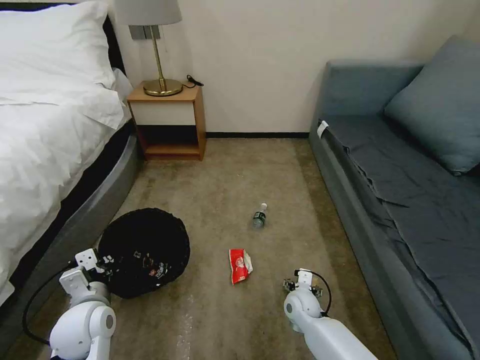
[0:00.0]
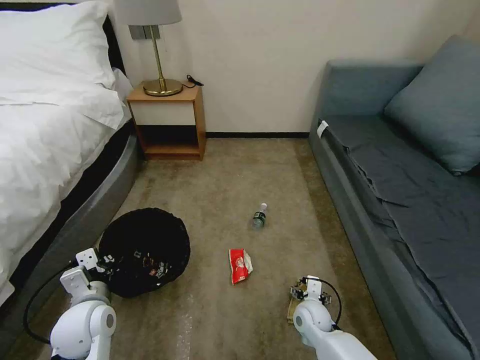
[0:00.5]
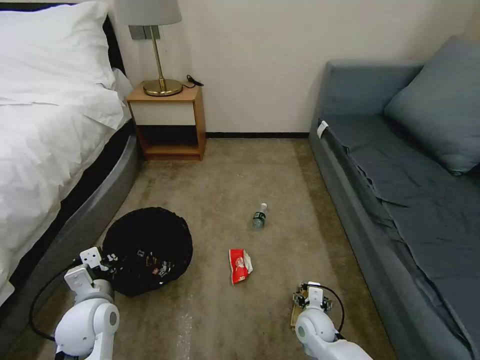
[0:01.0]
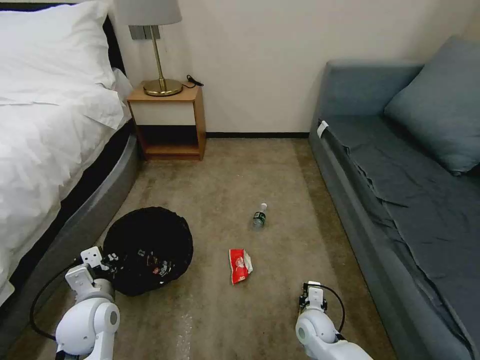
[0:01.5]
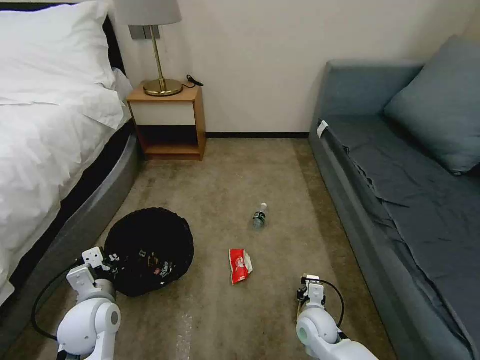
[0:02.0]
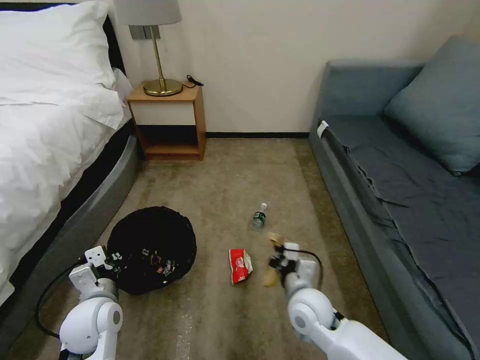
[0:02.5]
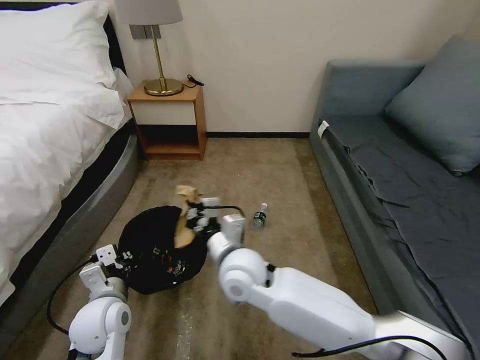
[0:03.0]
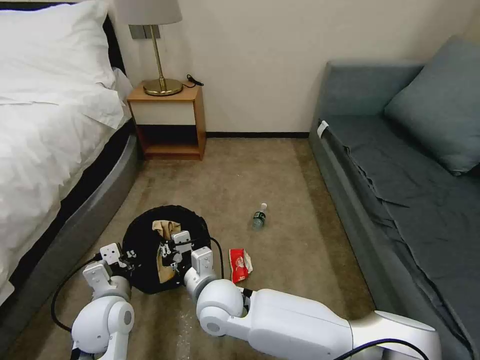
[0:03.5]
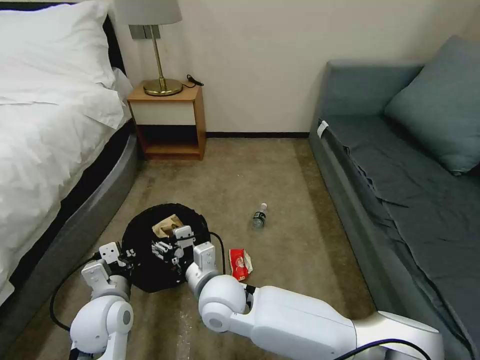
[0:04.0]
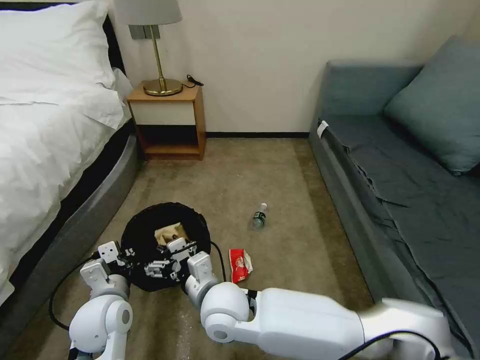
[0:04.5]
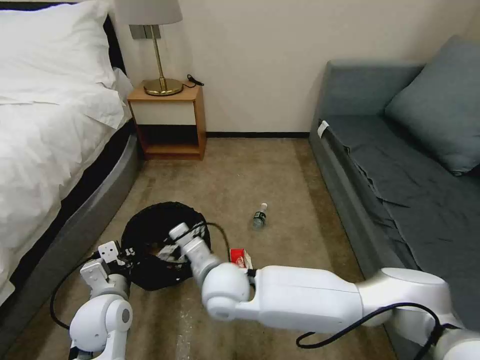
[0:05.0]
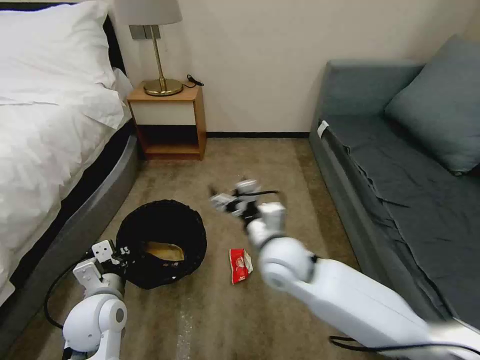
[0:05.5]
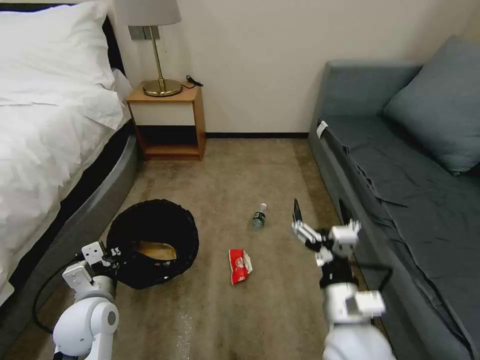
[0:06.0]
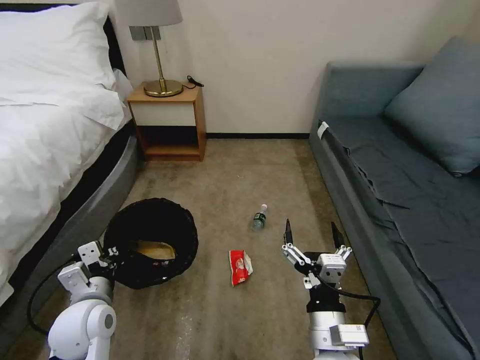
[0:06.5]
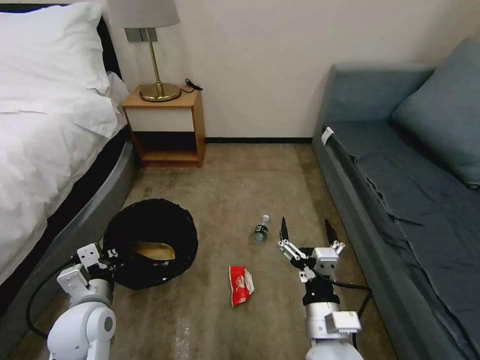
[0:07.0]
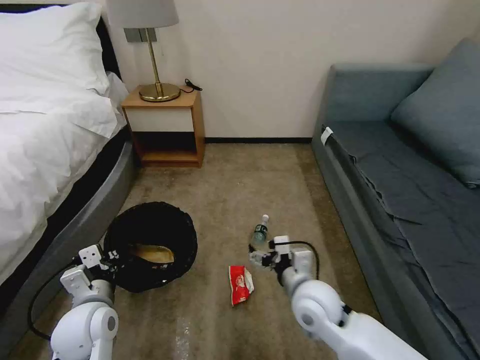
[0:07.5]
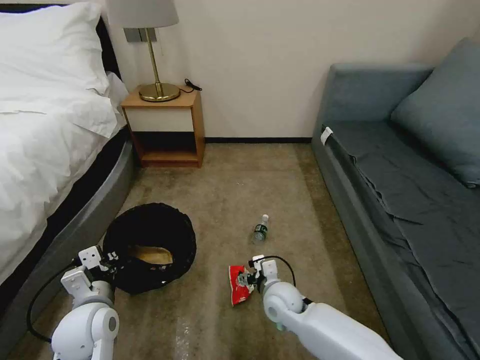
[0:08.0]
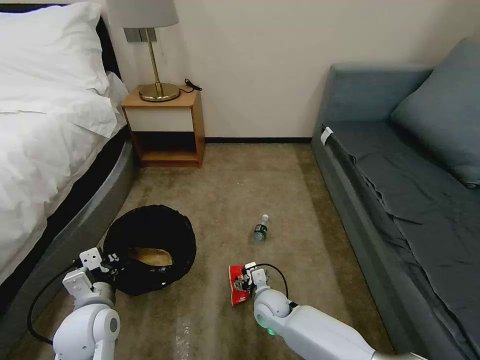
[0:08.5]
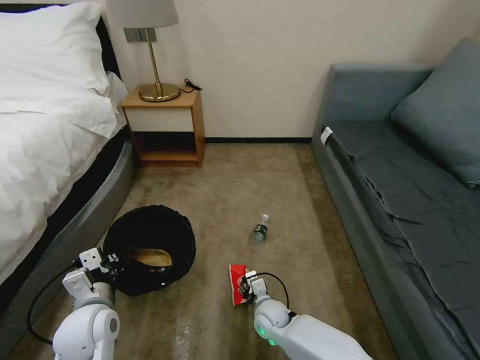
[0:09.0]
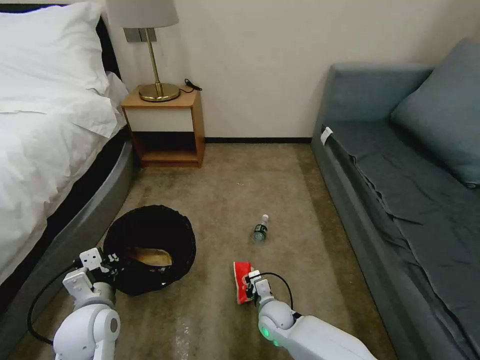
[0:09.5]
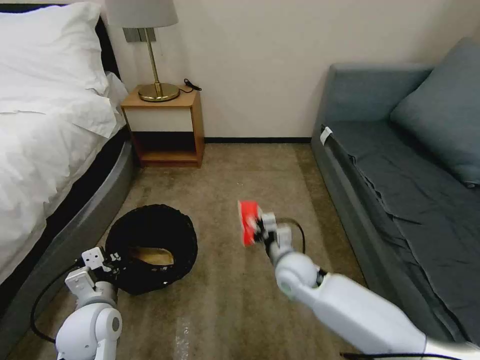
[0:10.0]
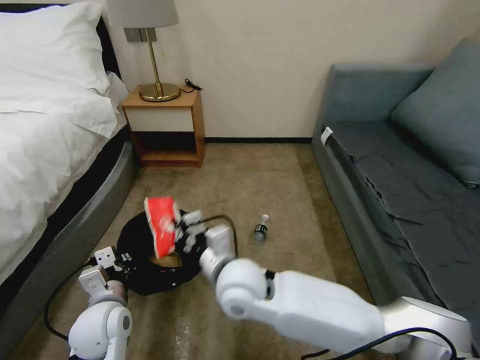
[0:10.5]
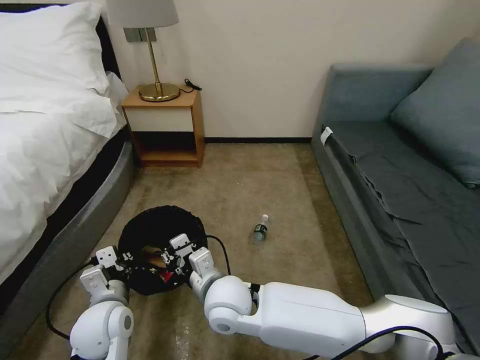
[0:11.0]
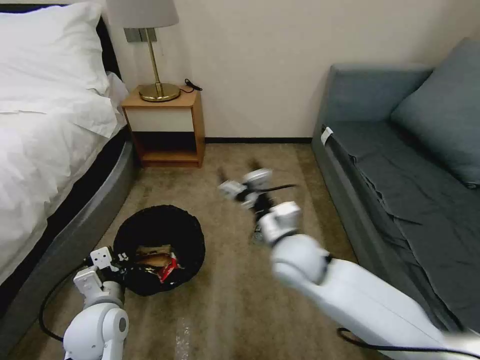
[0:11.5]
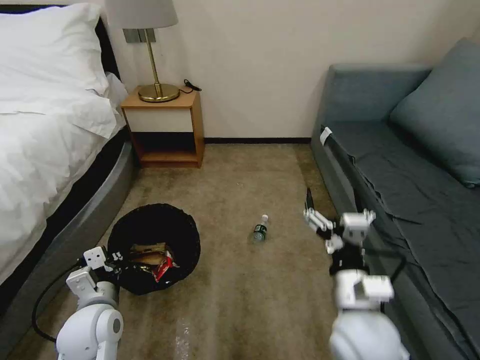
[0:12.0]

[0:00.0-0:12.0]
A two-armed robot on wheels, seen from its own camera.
Task of the whole recording: Pick up the trash bin, then pick up the garbage on the floor and place it into the trash bin.
0:00.0 to 0:02.0: The right gripper moves backward, about 5 cm, and closes.
0:02.0 to 0:04.0: The right gripper is displaced to the left and upward by some 30 cm, and opens its fingers.
0:04.0 to 0:06.0: The right gripper shifts some 25 cm to the right and backward.
0:06.0 to 0:08.0: The right gripper travels downward, forward and to the left by about 20 cm.
0:08.0 to 0:10.0: The right gripper goes approximately 10 cm upward, and closes up.
0:10.0 to 0:12.0: The right gripper moves backward and upward, some 20 cm, travels to the left and back again, roughly 15 cm each way, and opens.

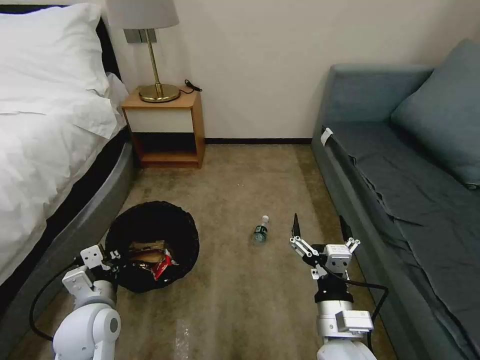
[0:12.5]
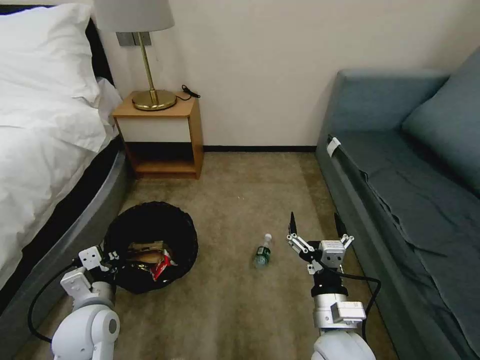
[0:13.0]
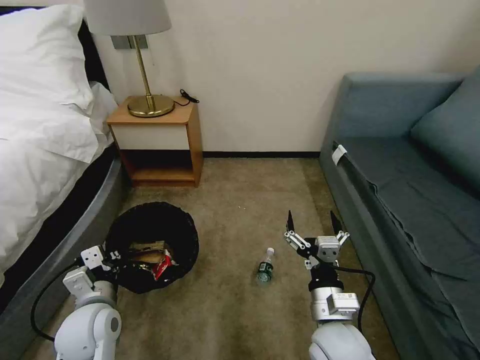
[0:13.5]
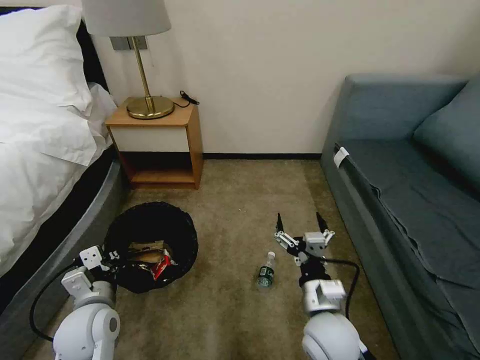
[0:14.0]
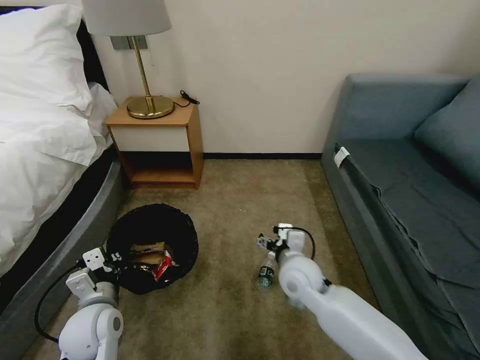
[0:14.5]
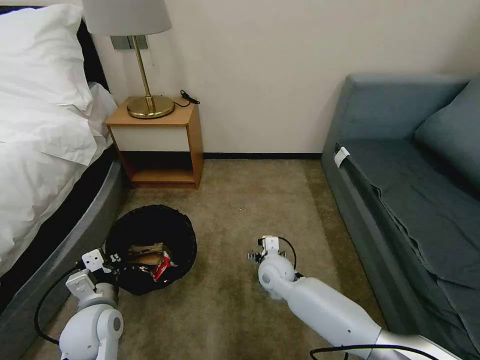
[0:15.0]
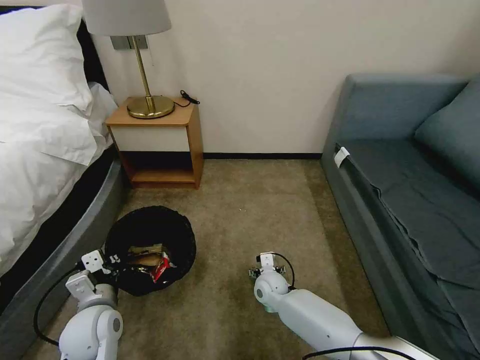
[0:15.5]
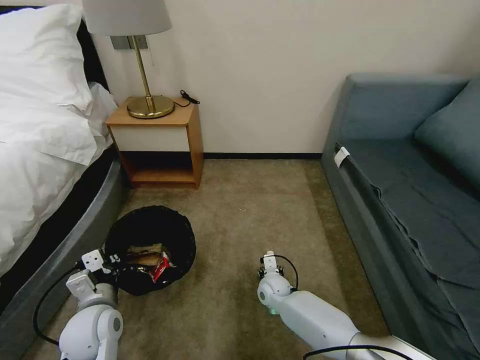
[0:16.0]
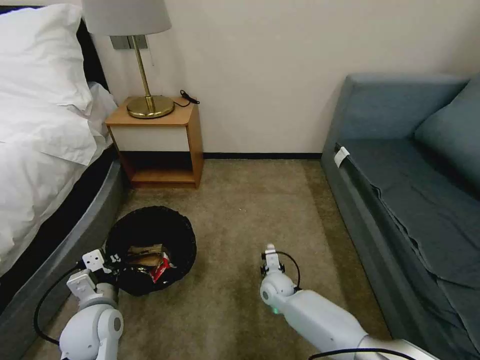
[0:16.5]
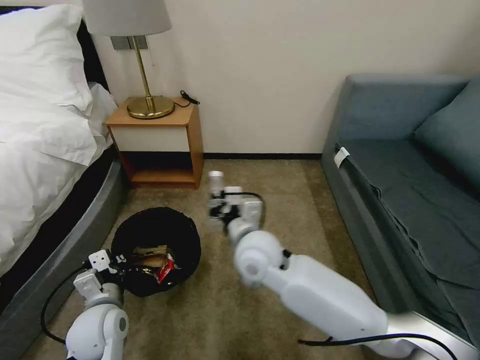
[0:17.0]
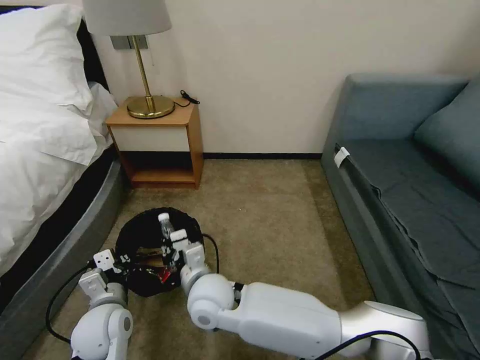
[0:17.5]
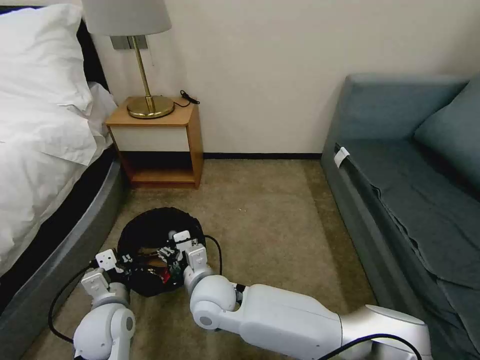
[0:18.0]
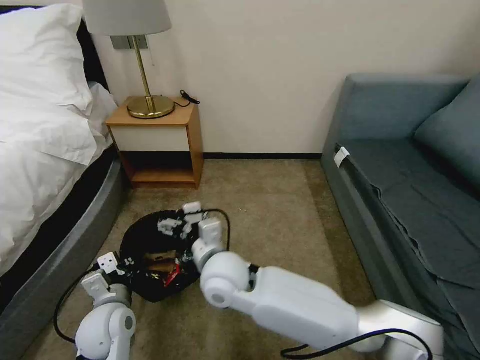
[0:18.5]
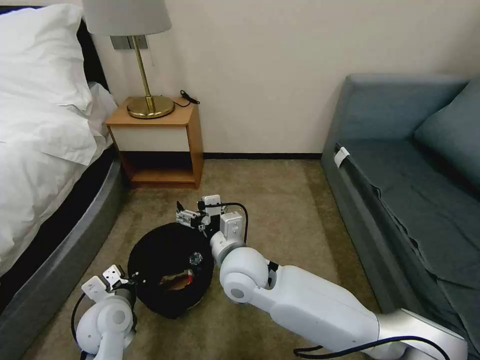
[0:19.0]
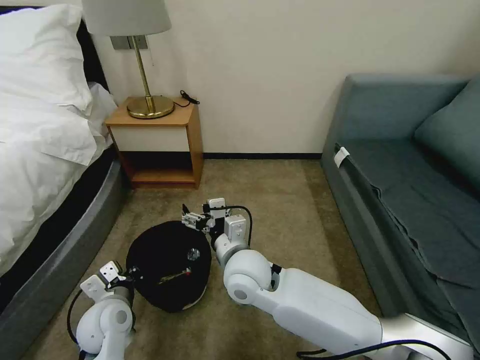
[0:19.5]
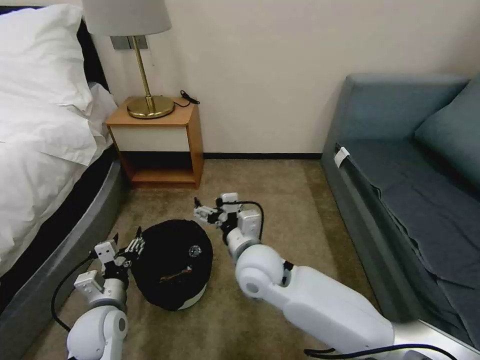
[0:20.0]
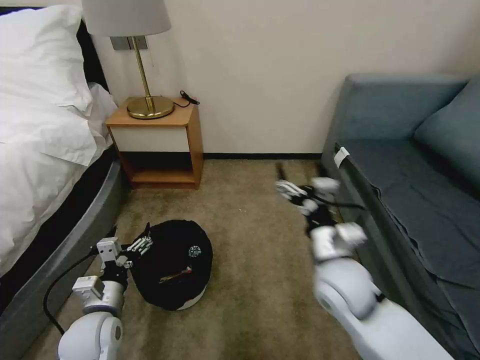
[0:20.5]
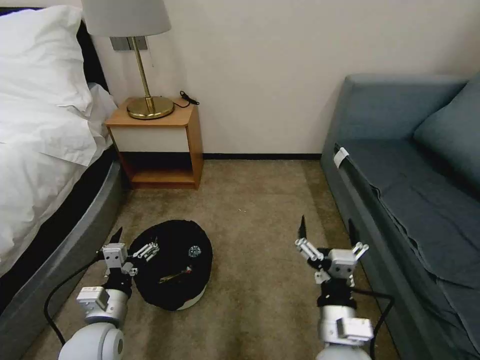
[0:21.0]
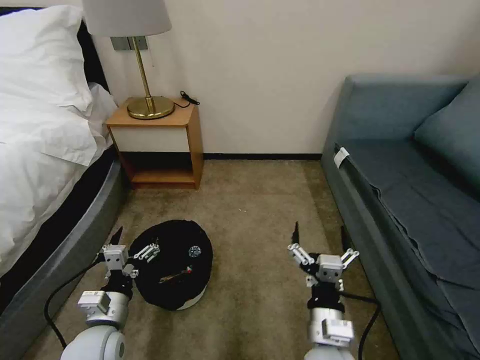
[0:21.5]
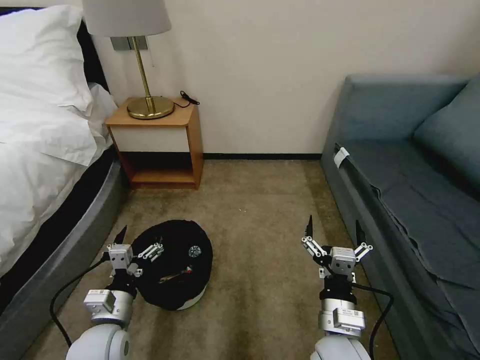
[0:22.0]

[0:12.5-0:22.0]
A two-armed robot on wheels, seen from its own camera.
Task of the whole recording: Pick up the trash bin, then pick up the garbage on the floor and place it into the trash bin.
0:12.5 to 0:14.5: The right gripper moves forward, approximately 20 cm.
0:14.5 to 0:16.5: The right gripper heads downward, covering some 20 cm, and closes up.
0:16.5 to 0:18.0: The right gripper goes about 25 cm upward, to the left and backward, and opens.
0:18.0 to 0:20.0: The right gripper is displaced to the right and upward by approximately 10 cm. Meanwhile the left gripper opens up.
0:20.0 to 0:22.0: The right gripper moves to the right, backward and downward, some 20 cm.
